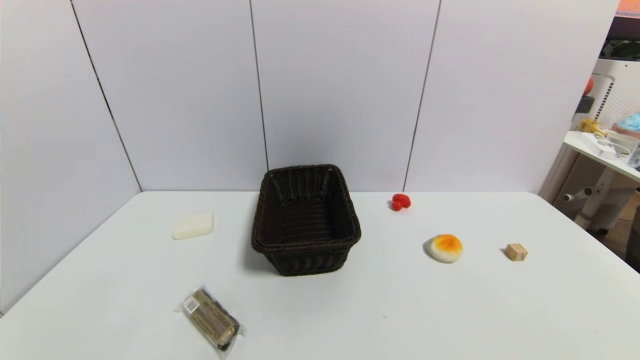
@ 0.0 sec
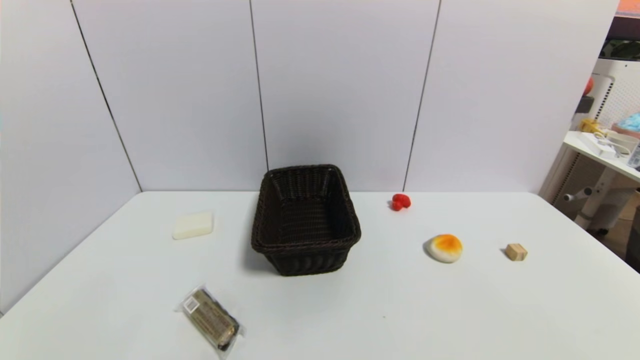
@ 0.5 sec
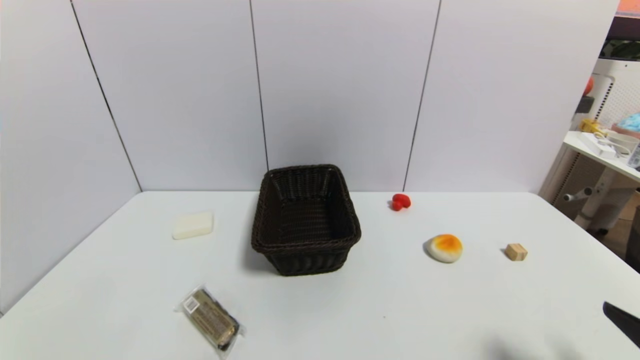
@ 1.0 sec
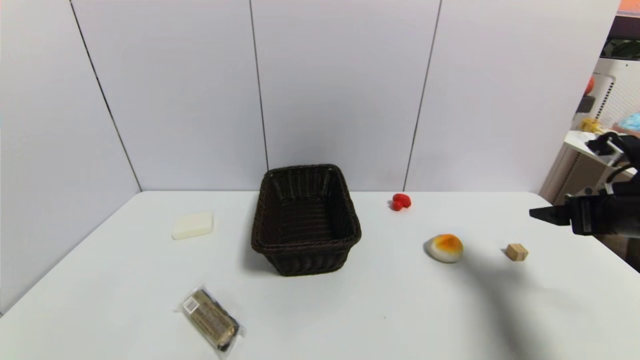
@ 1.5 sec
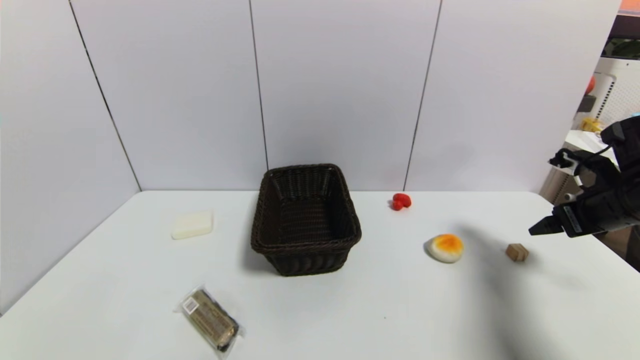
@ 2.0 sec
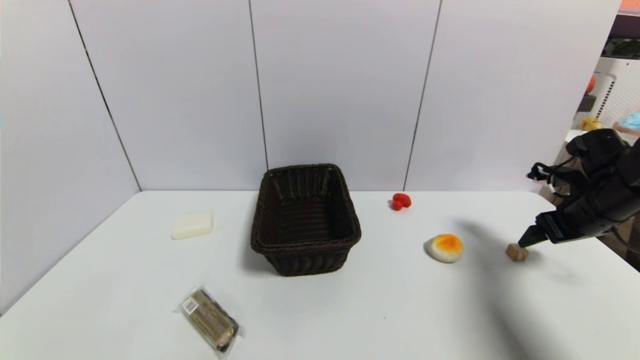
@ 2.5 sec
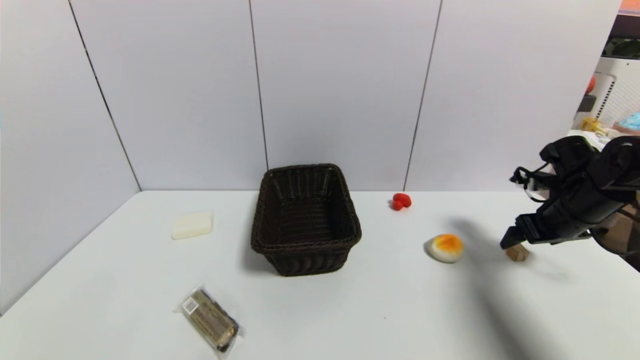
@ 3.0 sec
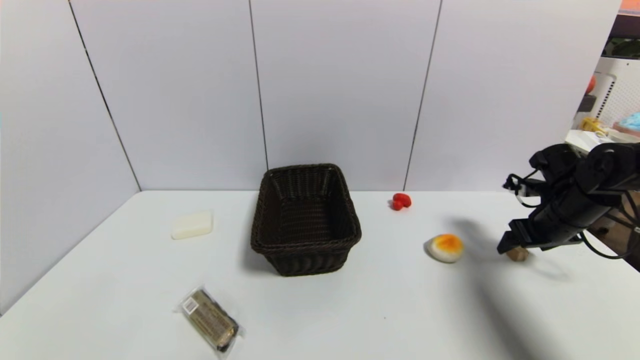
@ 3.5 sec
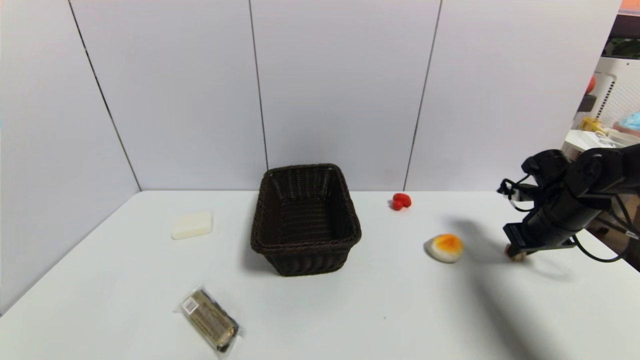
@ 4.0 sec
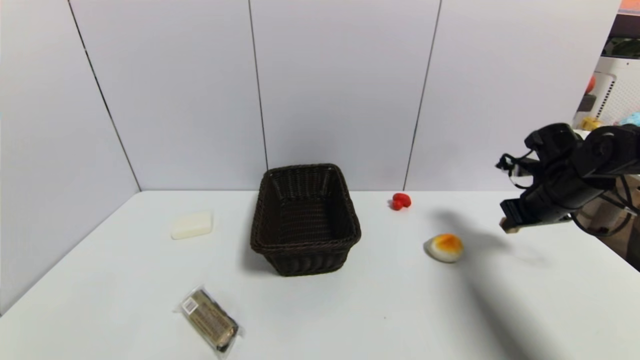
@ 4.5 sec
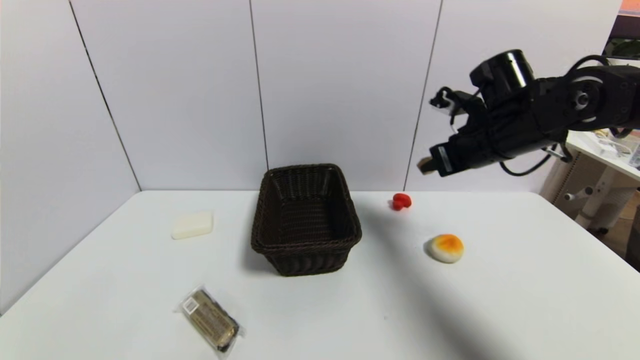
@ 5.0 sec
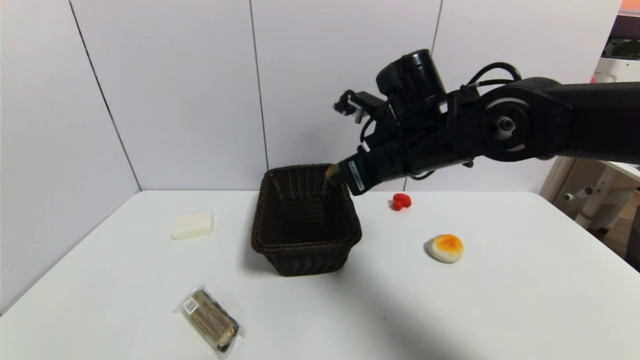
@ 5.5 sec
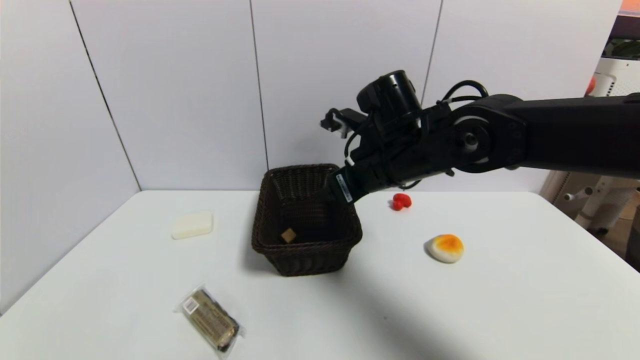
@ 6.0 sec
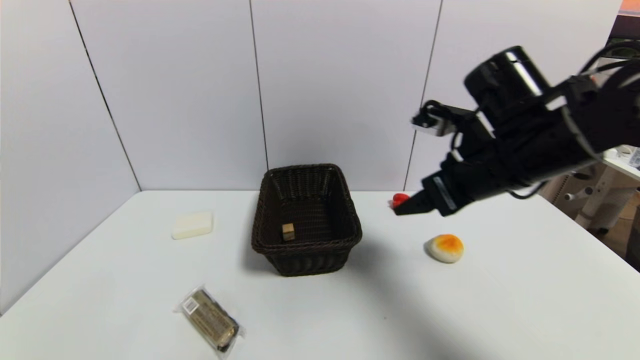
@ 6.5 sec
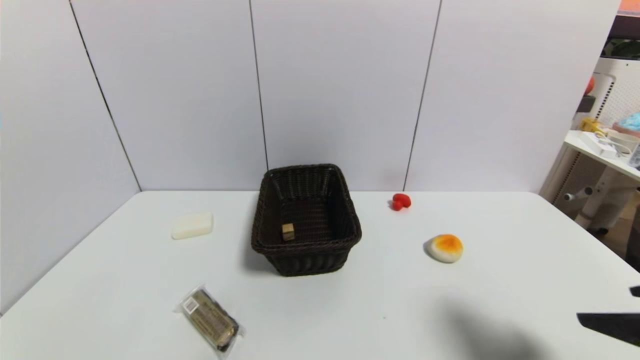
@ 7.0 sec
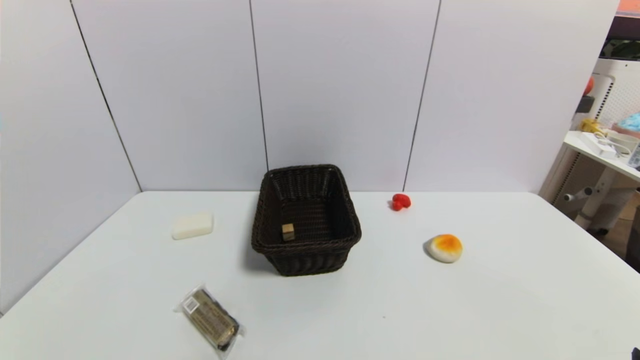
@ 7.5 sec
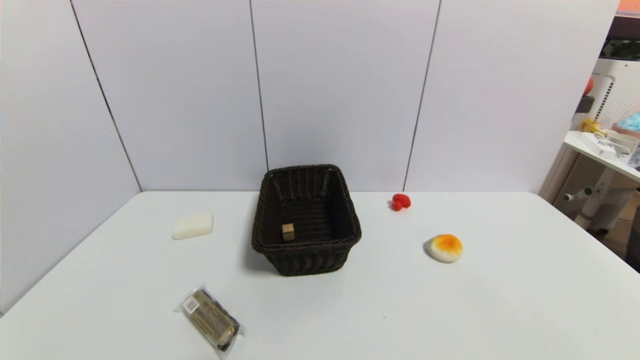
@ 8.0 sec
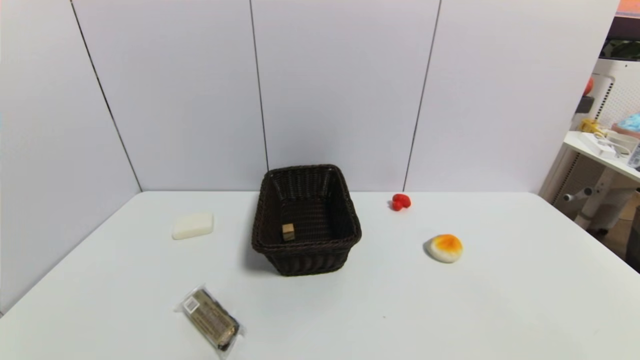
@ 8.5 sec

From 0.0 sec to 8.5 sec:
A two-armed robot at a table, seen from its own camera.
Task of the whole recording: use a gripper to pick the target object and place on the brown basket.
Step, from 0.0 sec to 4.0 sec: Grasp the square wooden block with the right gripper.
Step, from 4.5 sec to 6.0 sec: Place the square wooden block into the basket with the right gripper.
From 0.0 sec to 2.0 sec: The right gripper travels forward by approximately 30 cm.
From 2.0 sec to 4.0 sec: The right gripper shifts approximately 10 cm downward and forward, and closes up.
From 4.0 sec to 6.5 sec: The right gripper shifts roughly 25 cm to the left, upward and backward, and opens its fingers.
From 6.5 sec to 8.5 sec: The right gripper heads backward, downward and to the right, covering approximately 35 cm.

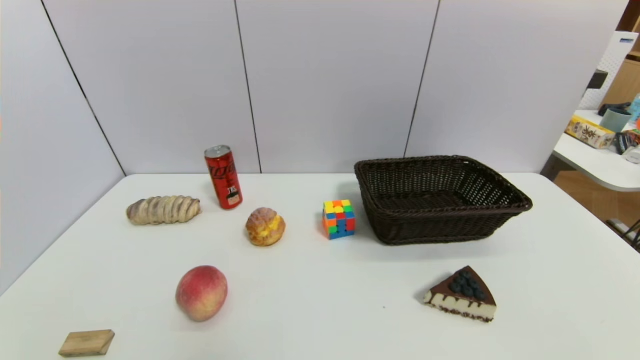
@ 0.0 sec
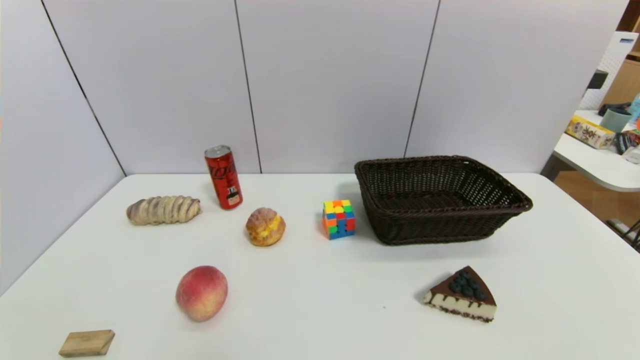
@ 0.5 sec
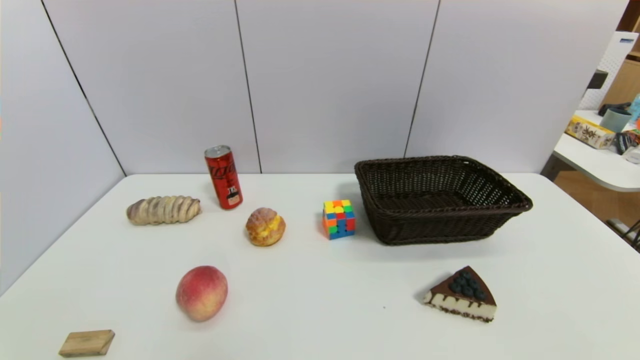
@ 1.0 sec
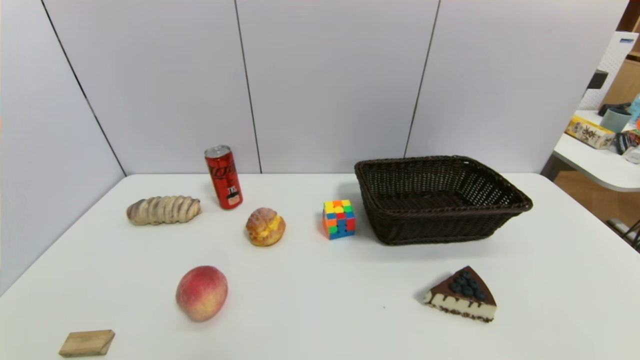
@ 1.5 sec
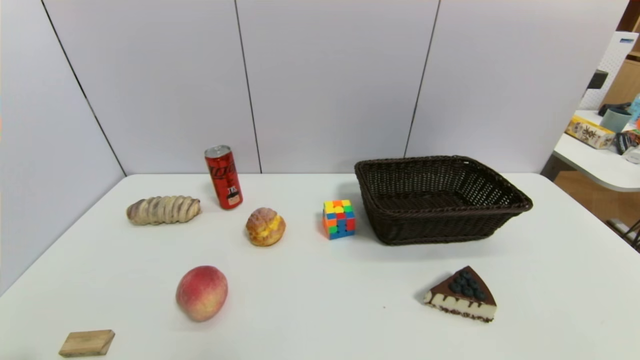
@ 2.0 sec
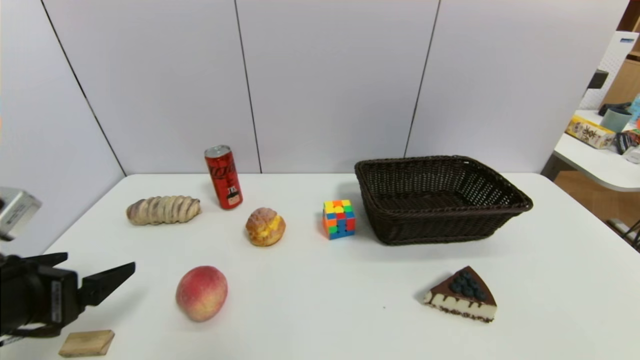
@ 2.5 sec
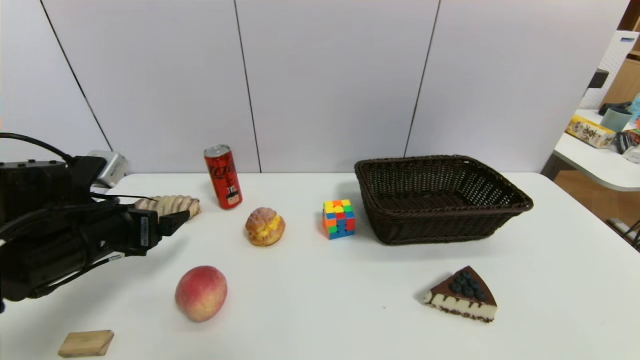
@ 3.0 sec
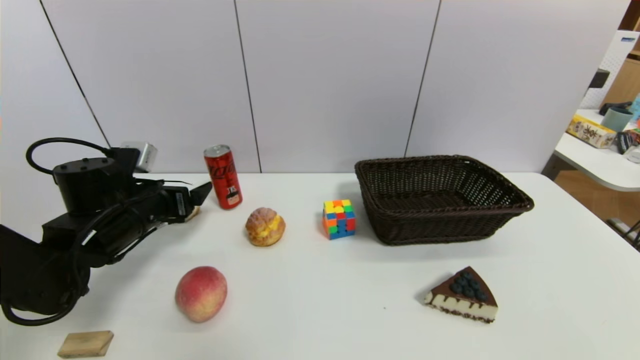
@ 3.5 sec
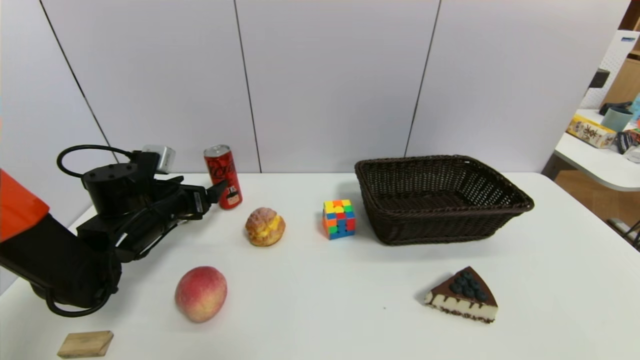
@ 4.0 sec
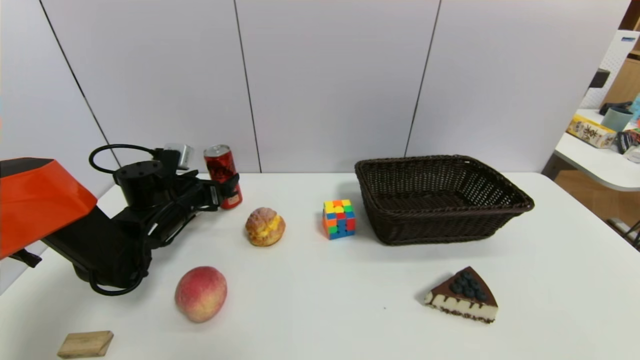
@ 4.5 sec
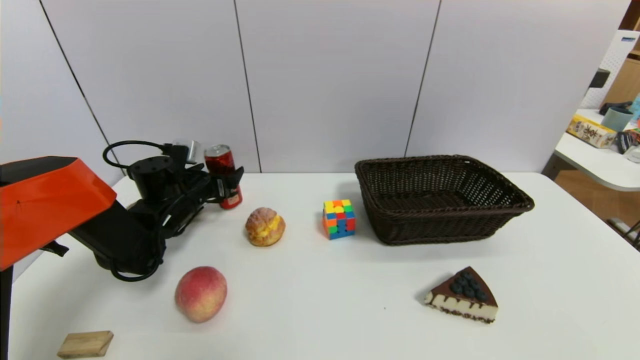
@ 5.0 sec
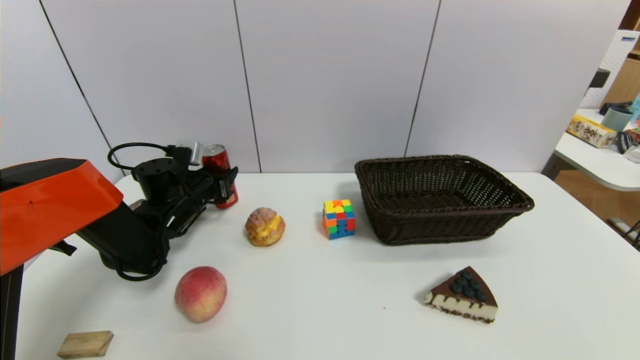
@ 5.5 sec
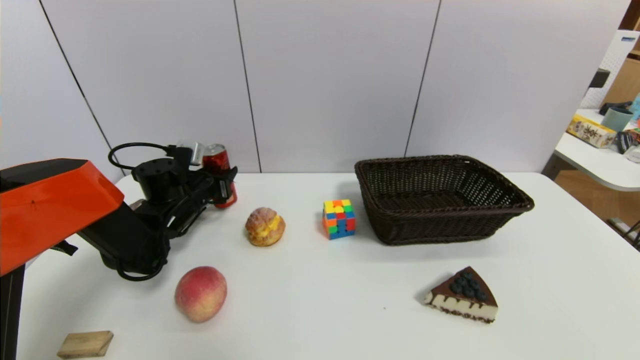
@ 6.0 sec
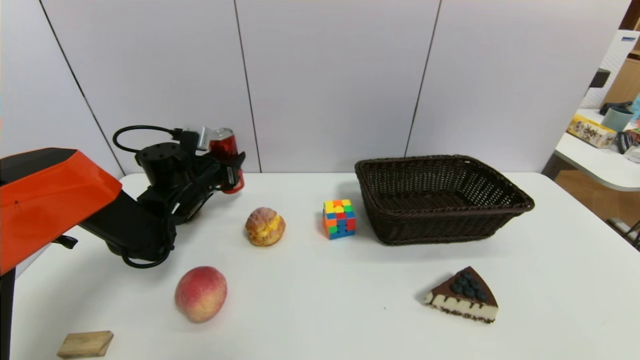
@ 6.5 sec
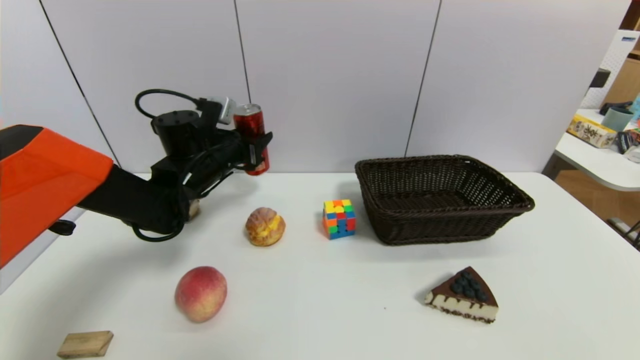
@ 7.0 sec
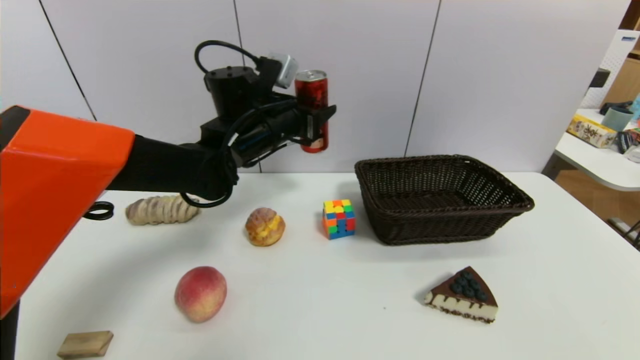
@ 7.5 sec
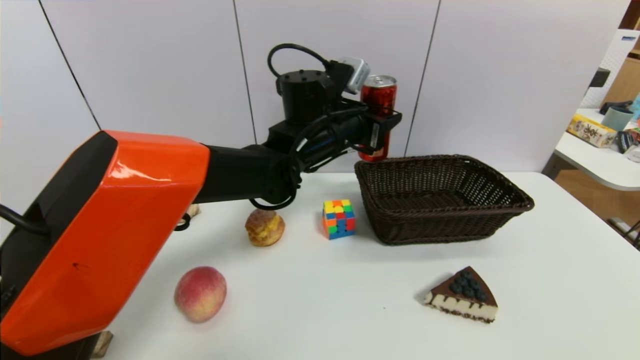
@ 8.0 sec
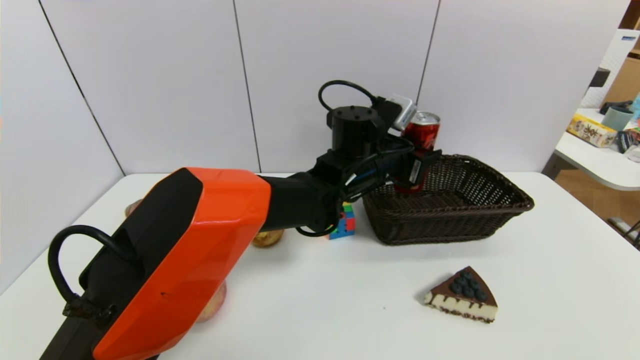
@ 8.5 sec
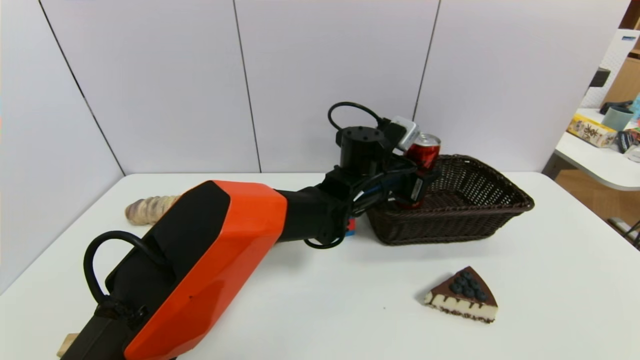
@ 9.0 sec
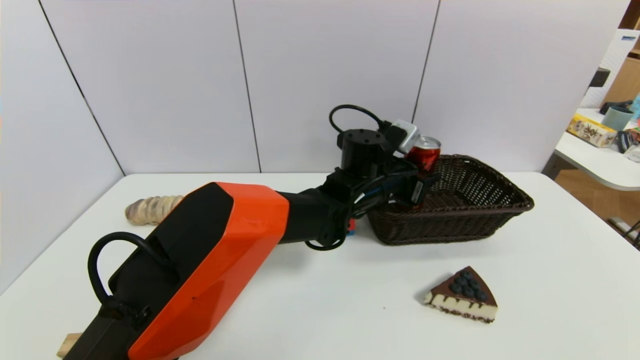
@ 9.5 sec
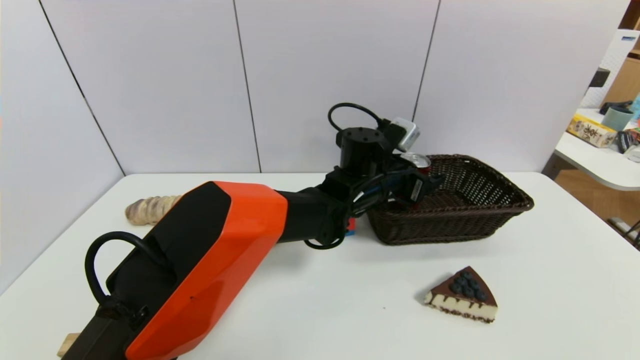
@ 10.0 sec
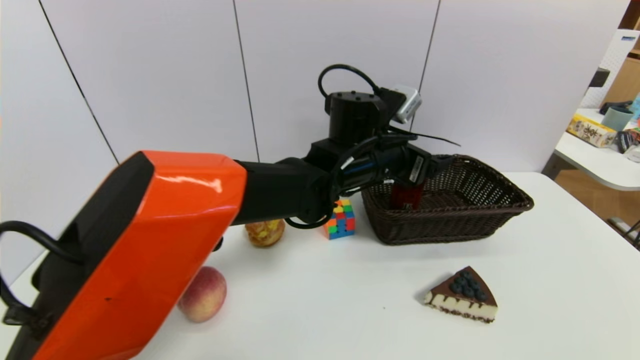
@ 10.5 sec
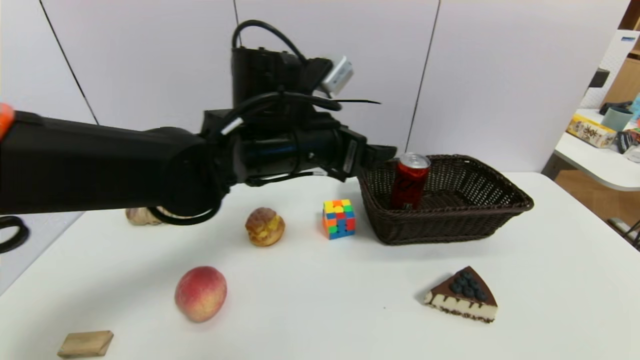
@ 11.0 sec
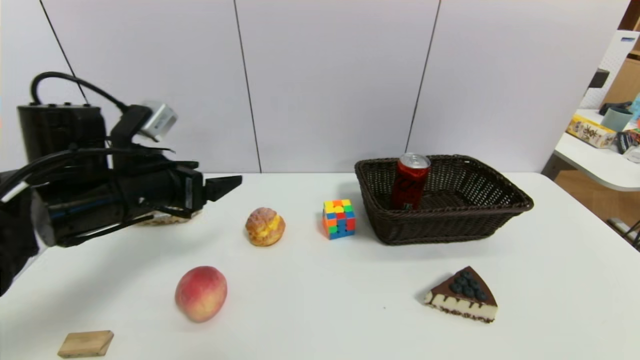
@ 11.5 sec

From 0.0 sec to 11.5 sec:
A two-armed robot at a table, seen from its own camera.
Task of the whole recording: use a gripper to pick the target object and place on the brown basket.
Step, from 0.0 sec to 5.5 sec: Grasp the coke with the left gripper.
Step, from 6.0 sec to 10.5 sec: Place the coke into the basket with the left gripper.
From 2.0 sec to 4.0 sec: The left gripper travels forward by about 30 cm.
From 4.0 sec to 6.0 sec: The left gripper goes approximately 5 cm forward, and closes up.
From 6.0 sec to 7.5 sec: The left gripper shifts approximately 20 cm to the right and upward.
From 7.5 sec to 9.5 sec: The left gripper goes roughly 20 cm to the right and downward.
From 9.5 sec to 11.5 sec: The left gripper is displaced to the left by roughly 30 cm, and opens.
